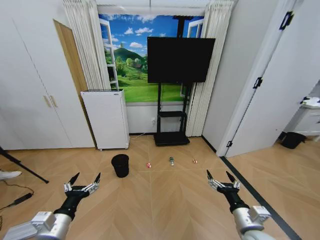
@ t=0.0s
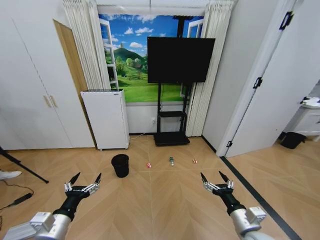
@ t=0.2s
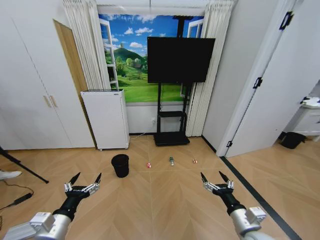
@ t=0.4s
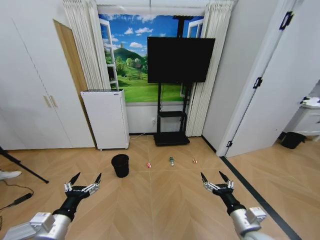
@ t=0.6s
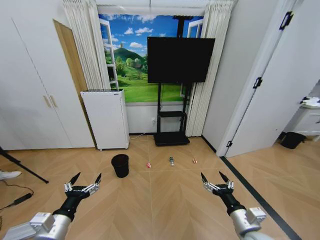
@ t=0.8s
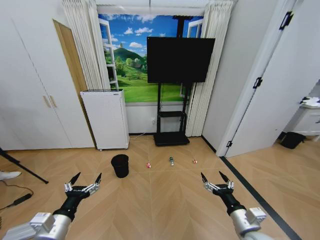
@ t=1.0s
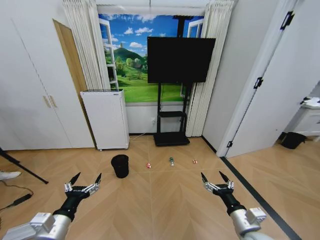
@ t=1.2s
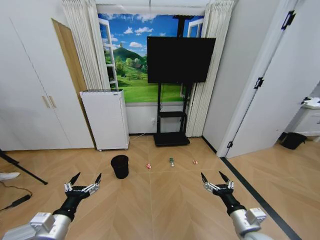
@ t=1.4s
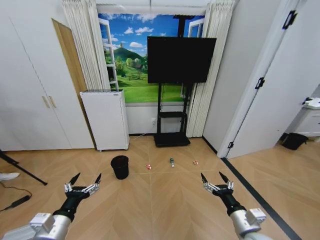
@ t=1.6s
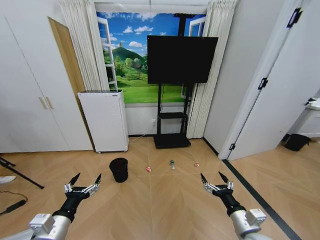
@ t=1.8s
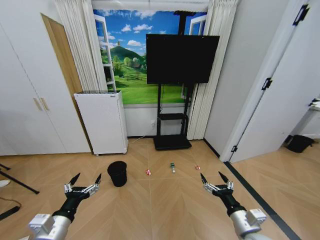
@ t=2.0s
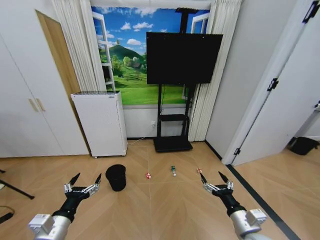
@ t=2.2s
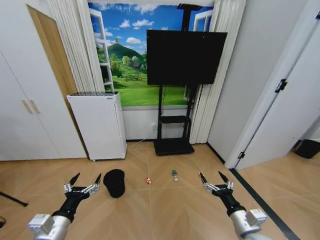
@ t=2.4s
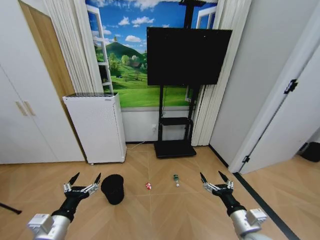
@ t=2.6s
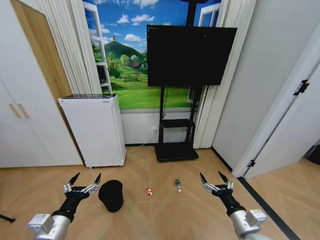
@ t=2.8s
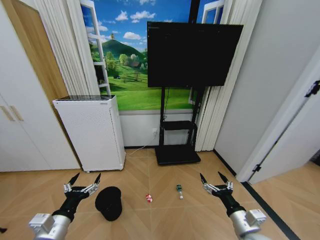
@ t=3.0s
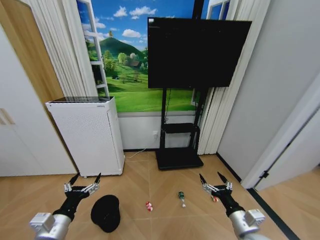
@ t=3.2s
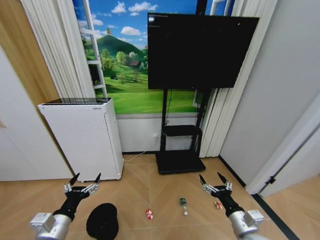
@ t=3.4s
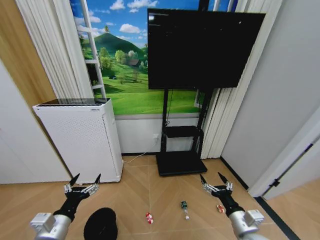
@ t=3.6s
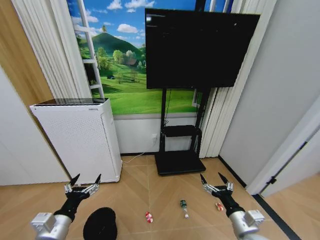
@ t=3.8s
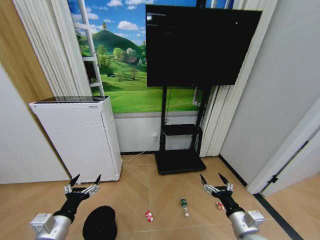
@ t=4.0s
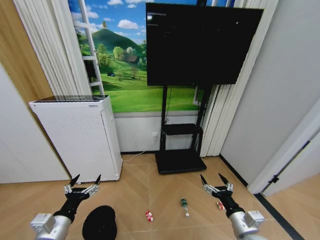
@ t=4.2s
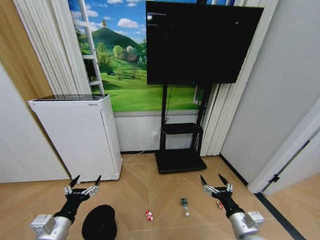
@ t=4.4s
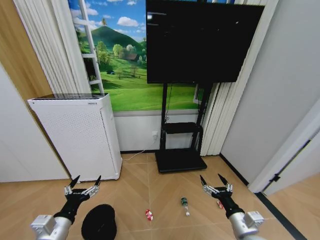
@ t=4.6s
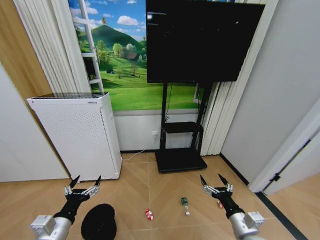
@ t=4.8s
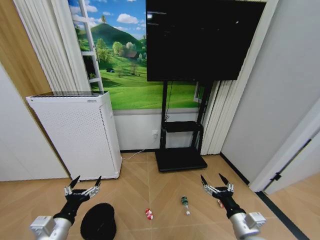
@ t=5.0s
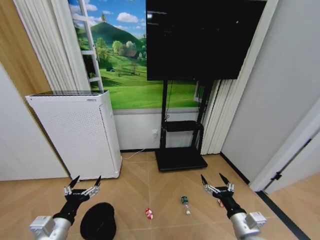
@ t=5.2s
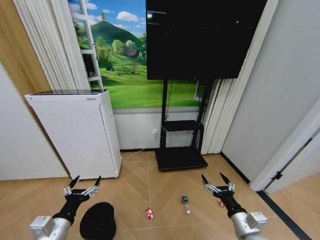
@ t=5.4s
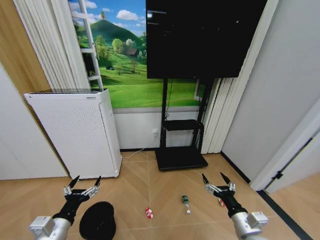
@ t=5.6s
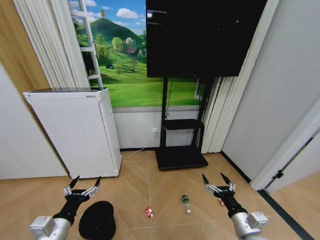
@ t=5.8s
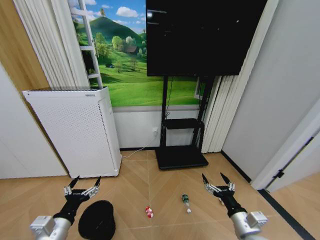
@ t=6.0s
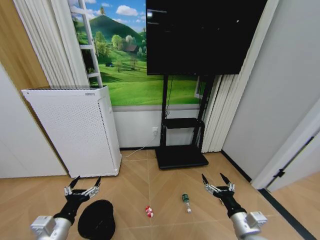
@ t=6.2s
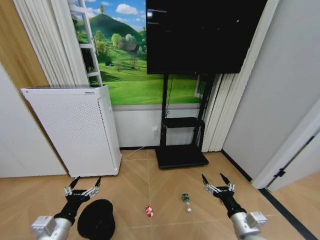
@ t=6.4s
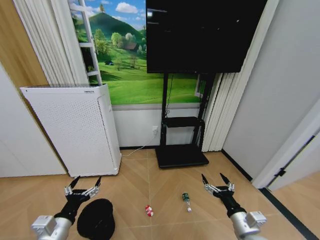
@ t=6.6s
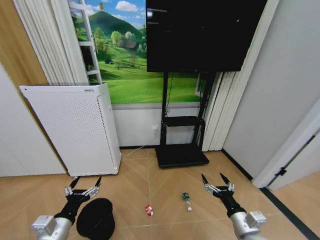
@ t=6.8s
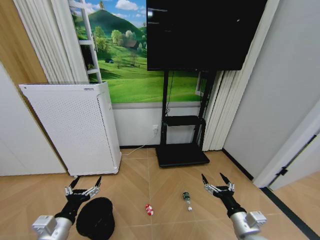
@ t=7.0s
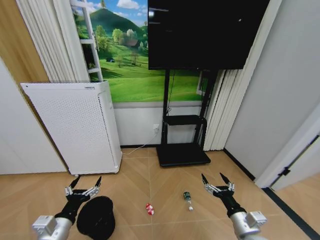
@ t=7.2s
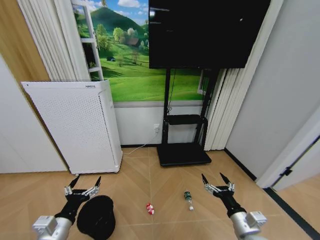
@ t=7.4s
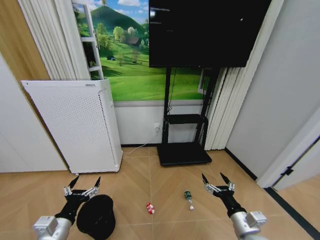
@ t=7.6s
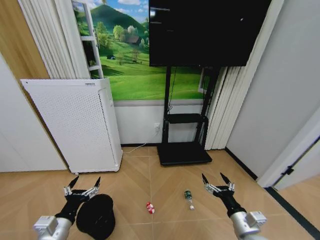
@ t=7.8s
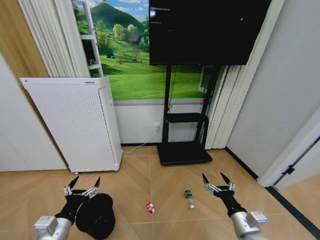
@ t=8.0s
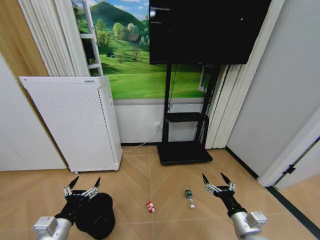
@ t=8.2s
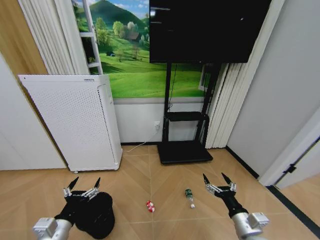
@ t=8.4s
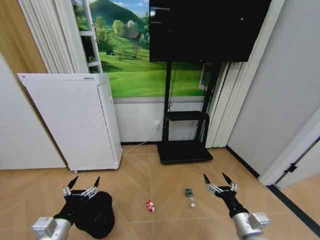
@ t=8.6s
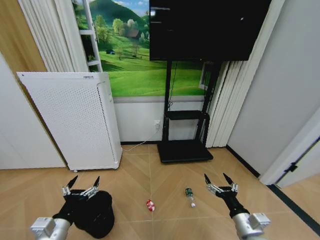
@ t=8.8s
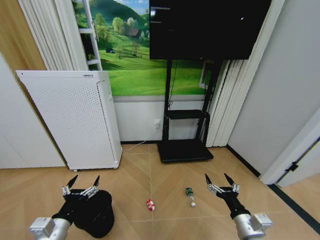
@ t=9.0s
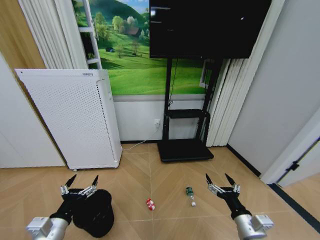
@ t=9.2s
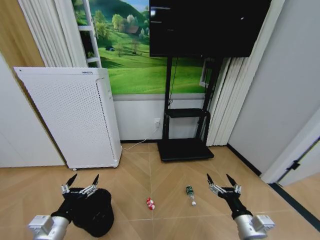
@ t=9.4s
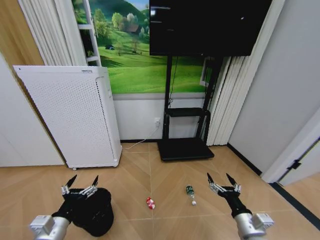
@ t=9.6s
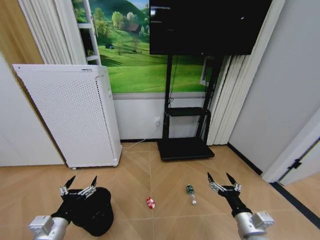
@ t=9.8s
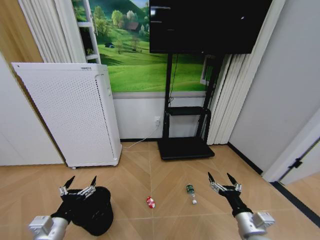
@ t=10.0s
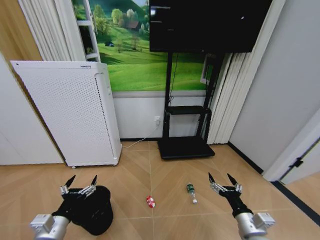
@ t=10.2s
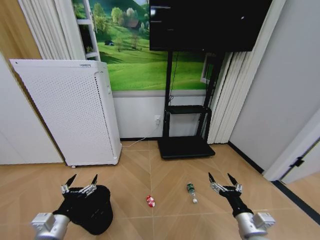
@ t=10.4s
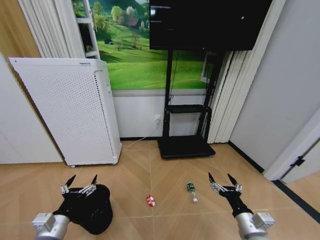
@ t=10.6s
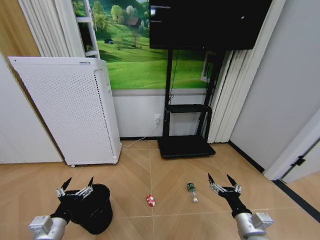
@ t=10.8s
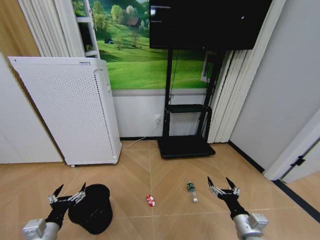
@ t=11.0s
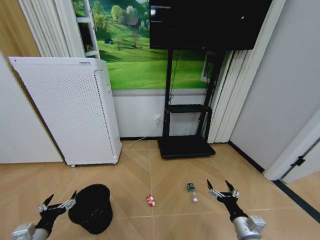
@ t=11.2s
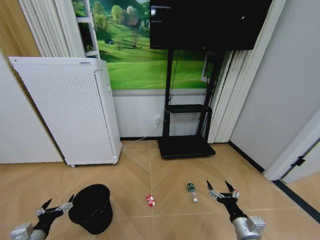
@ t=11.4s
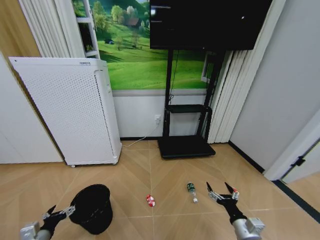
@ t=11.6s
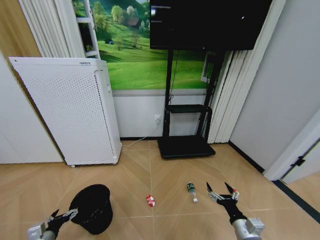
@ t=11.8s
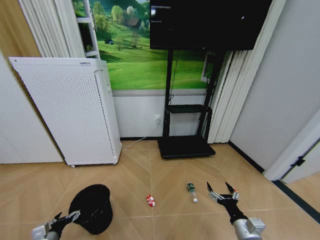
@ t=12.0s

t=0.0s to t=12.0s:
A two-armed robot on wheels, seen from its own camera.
Task of the whole recording: Pick up the trash bin and place the garbage on the floor into it.
t=4.4s to t=6.0s: The two grippers keep their place.
t=7.6s to t=9.0s: The two grippers keep their place.
t=9.0s to t=10.4s: The grippers move only a little.
t=10.4s to t=12.0s: The left gripper moves downward and to the left, some 20 cm.

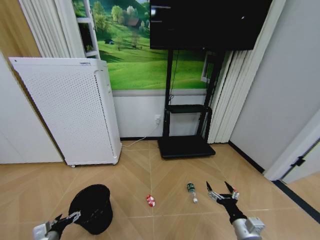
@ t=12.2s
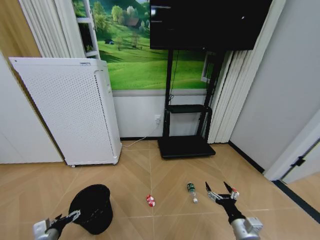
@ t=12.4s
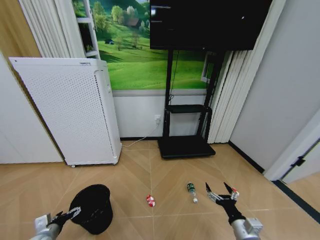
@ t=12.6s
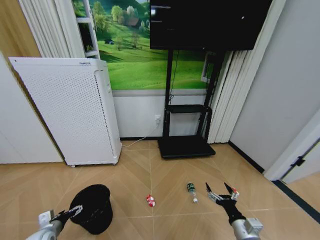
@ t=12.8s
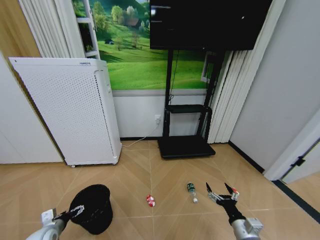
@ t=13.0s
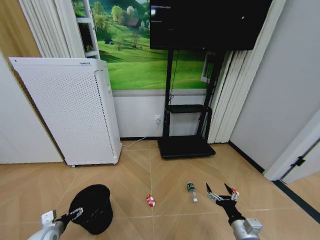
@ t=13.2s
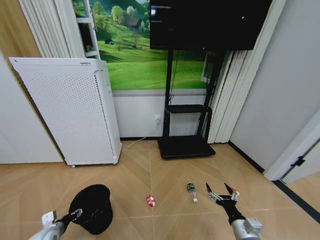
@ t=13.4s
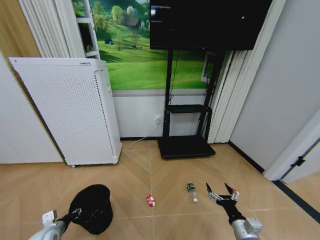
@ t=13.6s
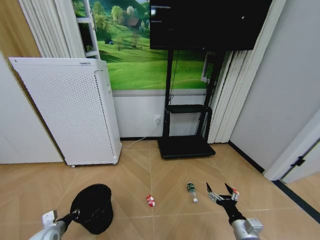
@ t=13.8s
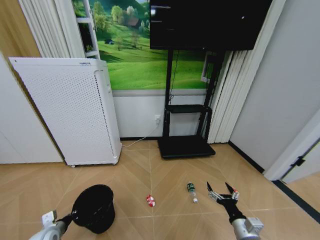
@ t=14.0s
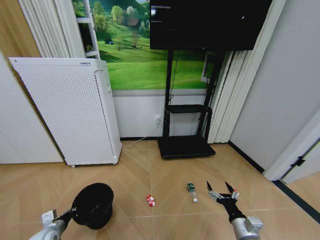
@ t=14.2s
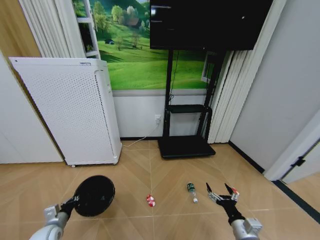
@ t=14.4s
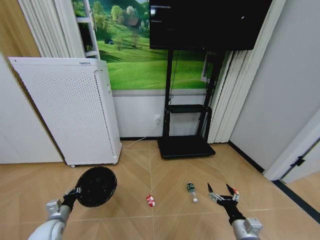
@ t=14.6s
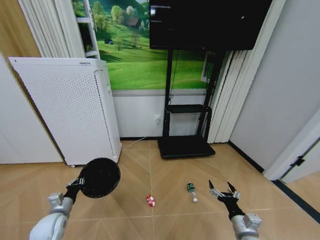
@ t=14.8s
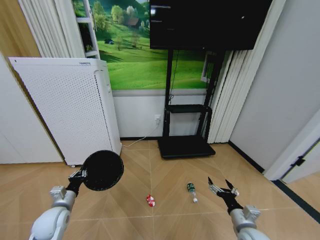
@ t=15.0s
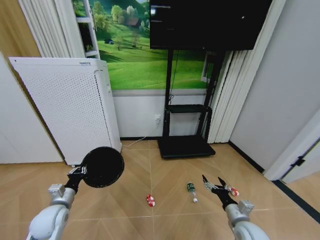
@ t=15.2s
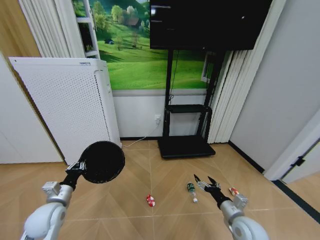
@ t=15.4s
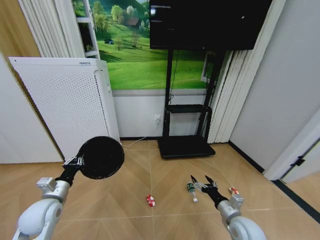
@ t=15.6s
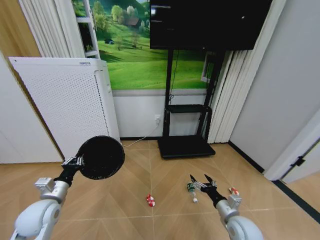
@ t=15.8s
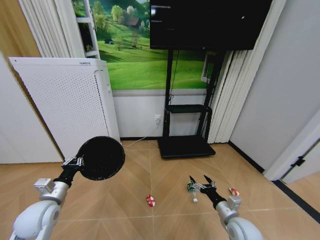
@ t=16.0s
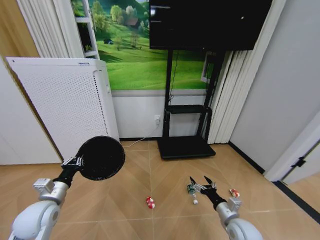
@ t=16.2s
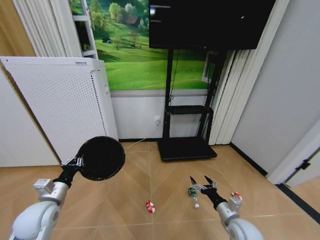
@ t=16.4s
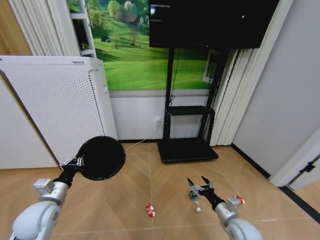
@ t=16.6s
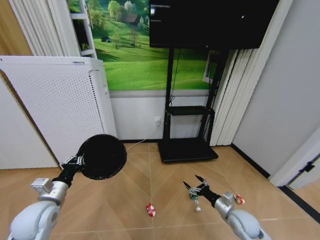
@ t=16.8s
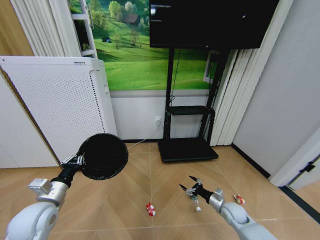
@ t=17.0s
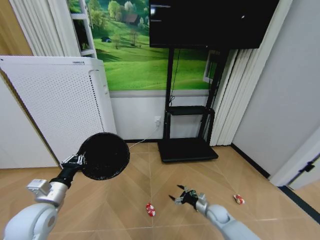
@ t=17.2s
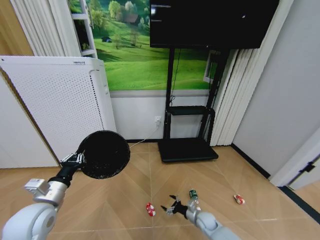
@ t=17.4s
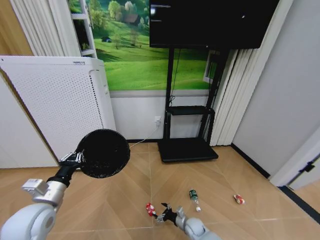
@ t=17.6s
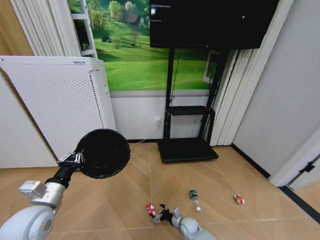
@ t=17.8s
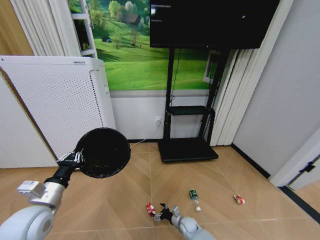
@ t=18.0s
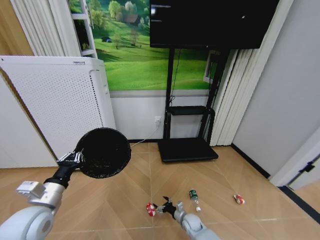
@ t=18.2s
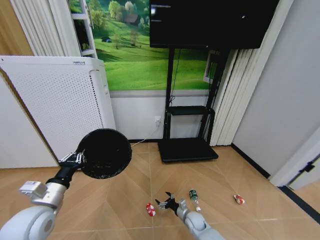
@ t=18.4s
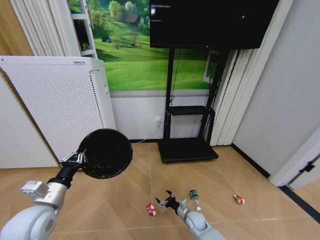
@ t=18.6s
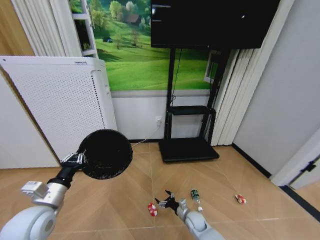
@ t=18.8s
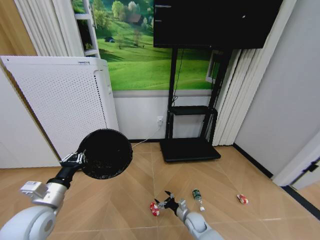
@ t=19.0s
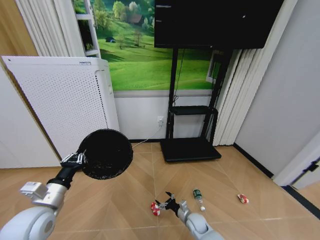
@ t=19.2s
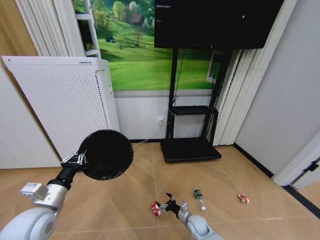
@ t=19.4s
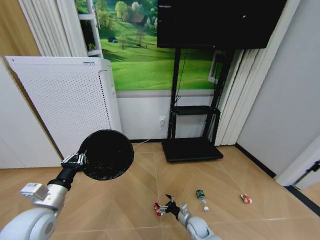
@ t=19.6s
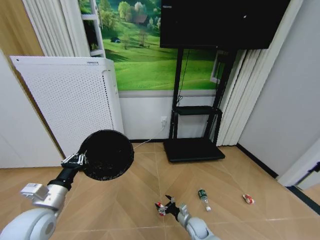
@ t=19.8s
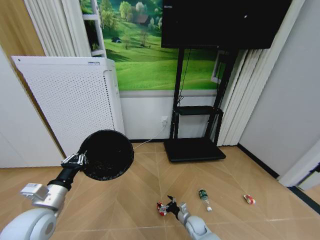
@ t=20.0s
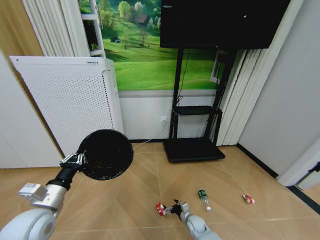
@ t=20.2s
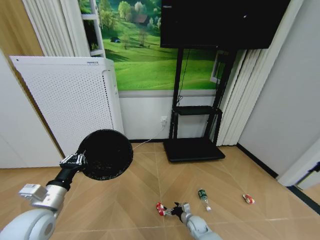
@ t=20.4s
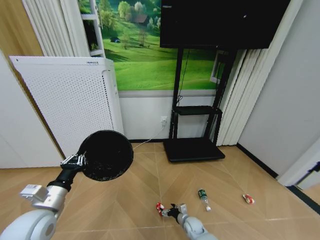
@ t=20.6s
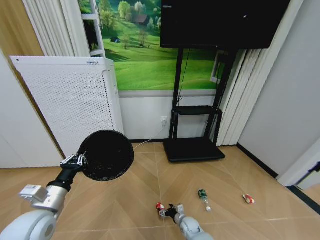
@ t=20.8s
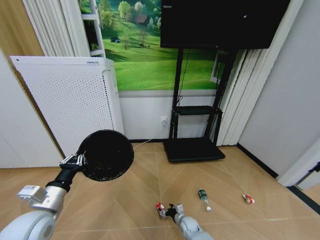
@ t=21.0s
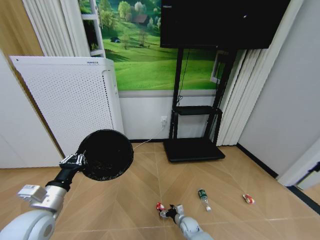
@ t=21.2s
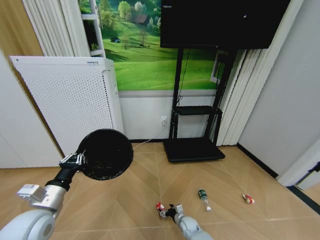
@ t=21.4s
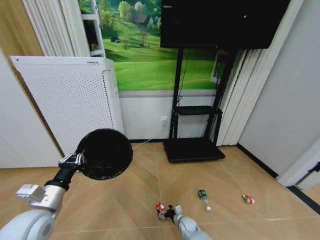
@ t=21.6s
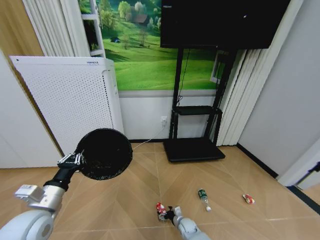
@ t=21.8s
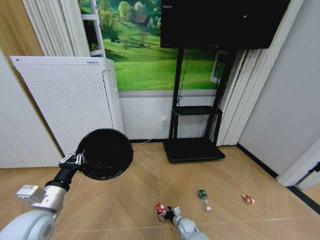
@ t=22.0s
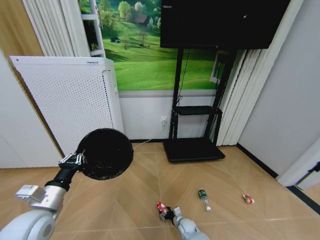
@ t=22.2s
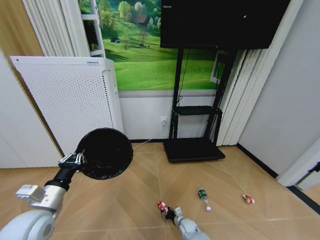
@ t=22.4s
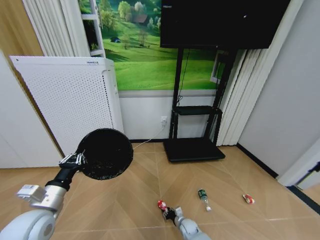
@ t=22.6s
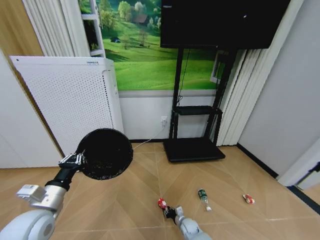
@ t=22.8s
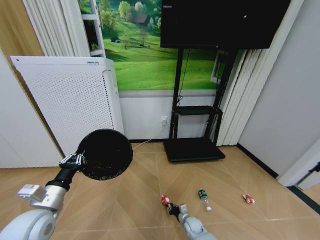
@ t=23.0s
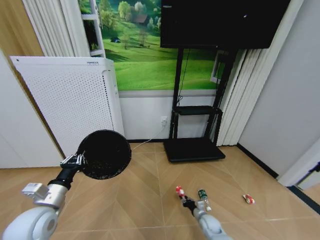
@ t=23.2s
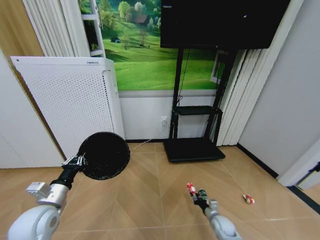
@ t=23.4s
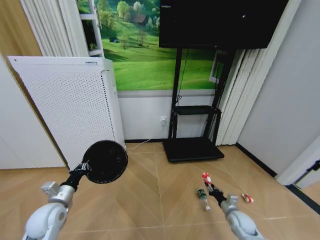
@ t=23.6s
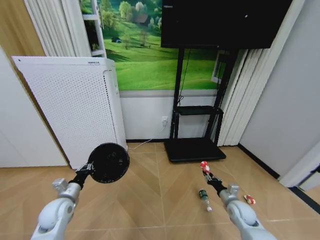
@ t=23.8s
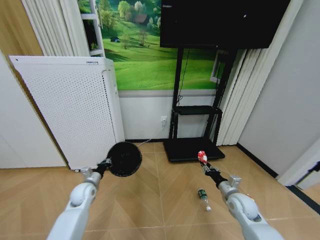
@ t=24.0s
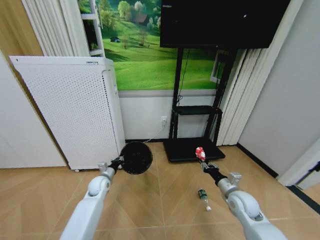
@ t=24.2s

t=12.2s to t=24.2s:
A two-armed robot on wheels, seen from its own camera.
Task of the whole recording: Pick up the trash bin and place the garbage on the floor into it.
t=12.2s to t=13.8s: The left gripper closes its fingers.
t=13.8s to t=15.2s: The left gripper moves upward, approximately 10 cm, while the right gripper moves forward, about 5 cm.
t=15.2s to t=16.6s: The left gripper moves upward, roughly 5 cm.
t=16.6s to t=18.2s: The right gripper travels downward, to the left and forward by some 25 cm; the left gripper shifts approximately 5 cm upward.
t=19.8s to t=21.2s: The right gripper heads downward, covering approximately 5 cm.
t=21.2s to t=22.6s: The right gripper closes up.
t=22.6s to t=24.2s: The right gripper heads upward and to the right, covering some 35 cm. The left gripper travels forward and downward by roughly 25 cm.
